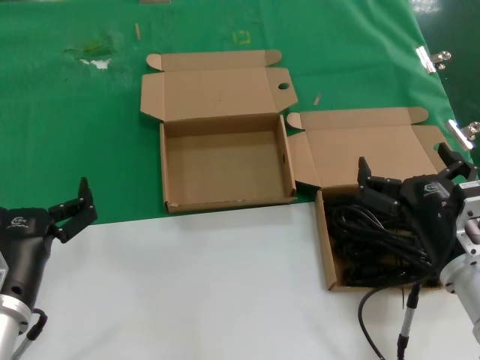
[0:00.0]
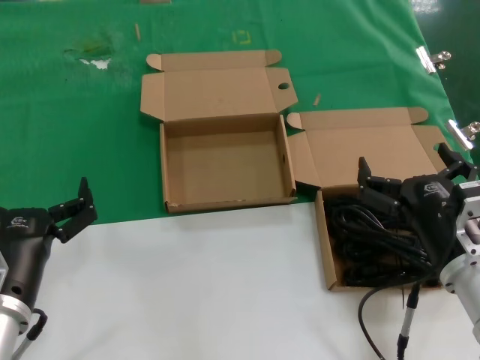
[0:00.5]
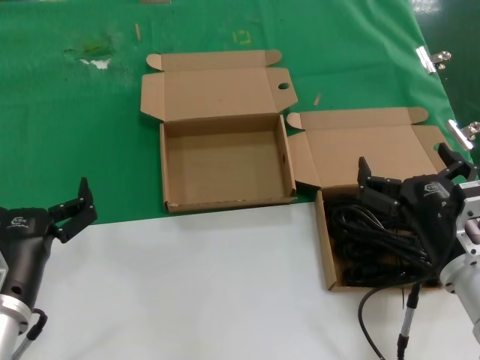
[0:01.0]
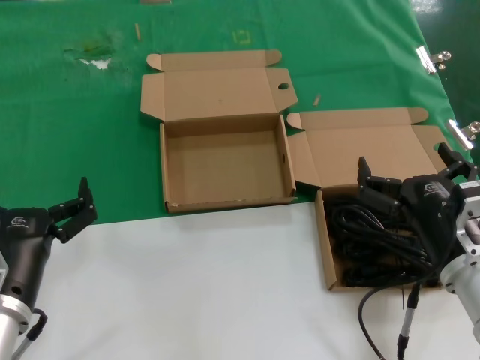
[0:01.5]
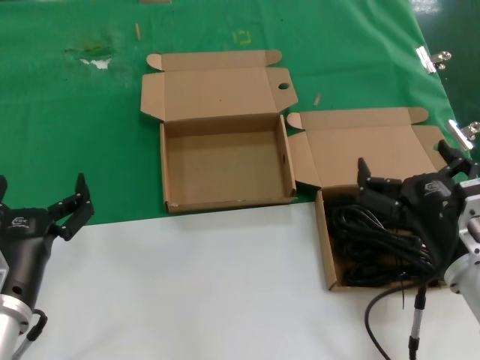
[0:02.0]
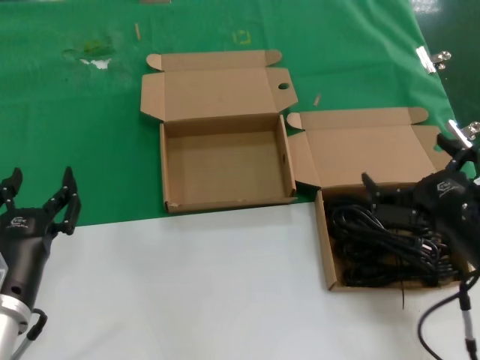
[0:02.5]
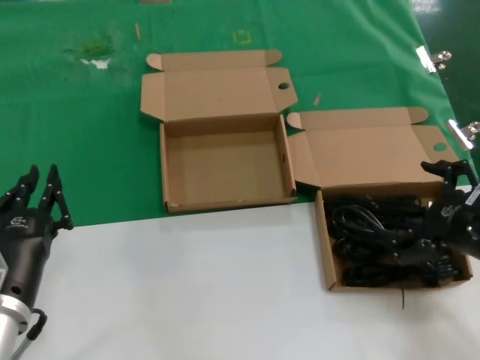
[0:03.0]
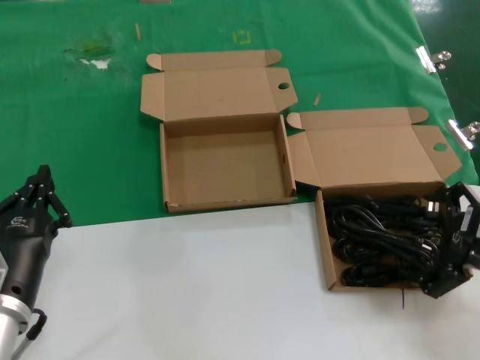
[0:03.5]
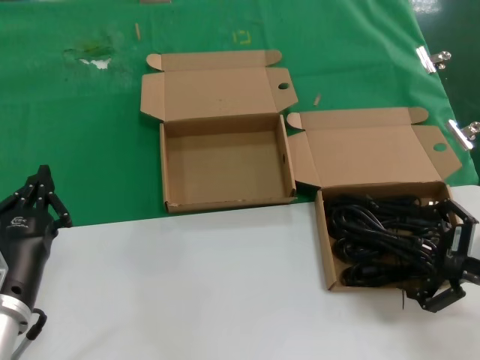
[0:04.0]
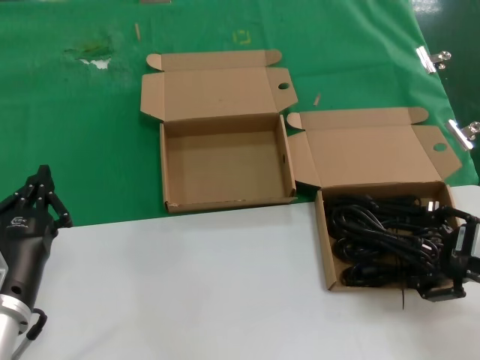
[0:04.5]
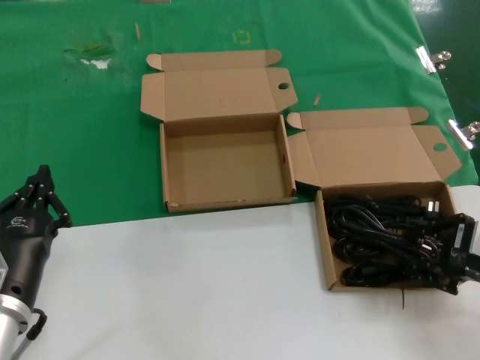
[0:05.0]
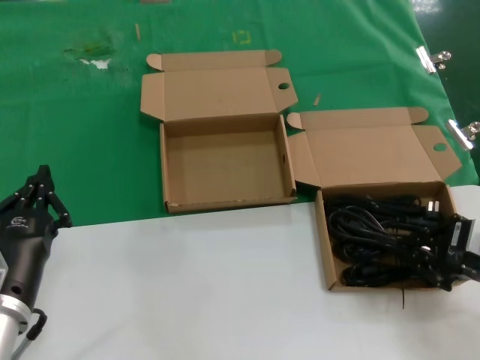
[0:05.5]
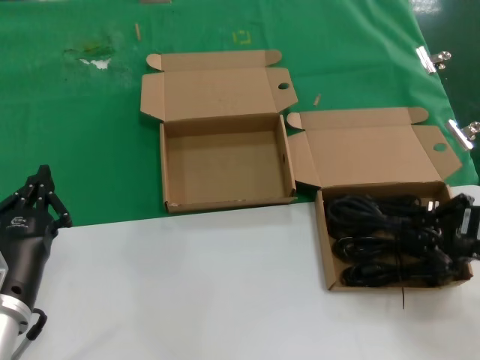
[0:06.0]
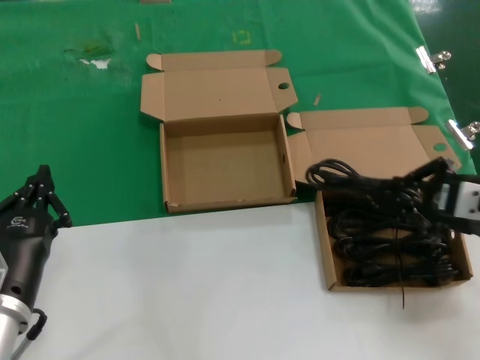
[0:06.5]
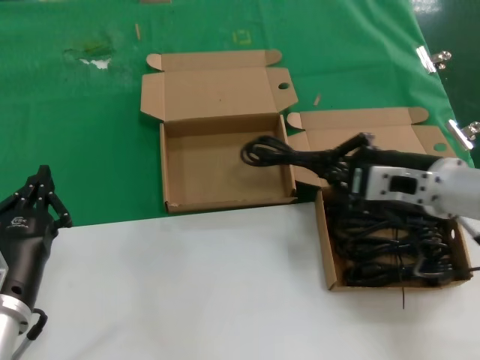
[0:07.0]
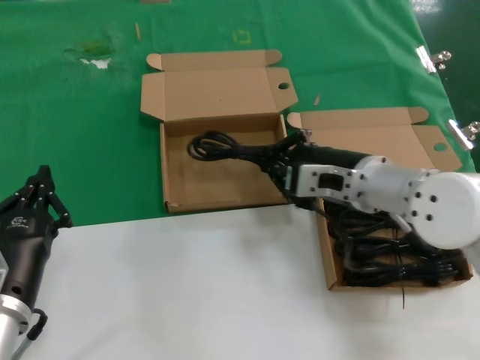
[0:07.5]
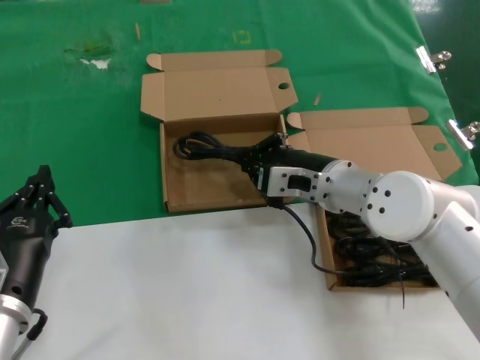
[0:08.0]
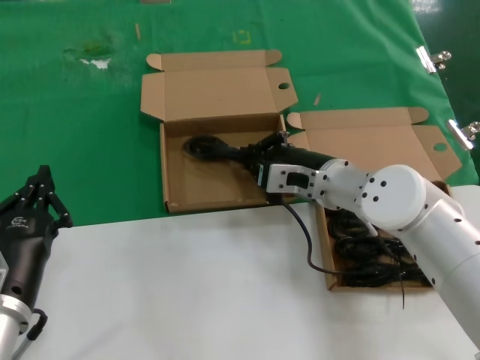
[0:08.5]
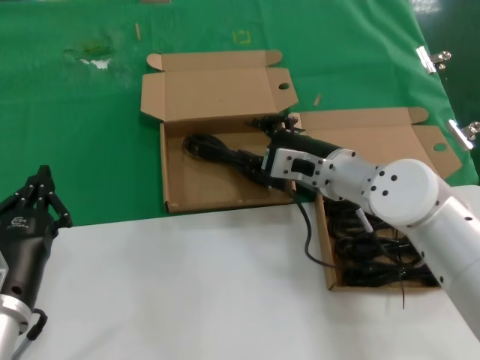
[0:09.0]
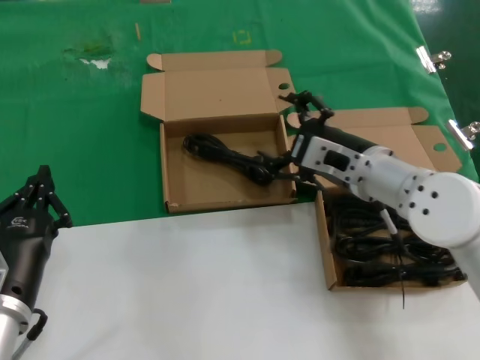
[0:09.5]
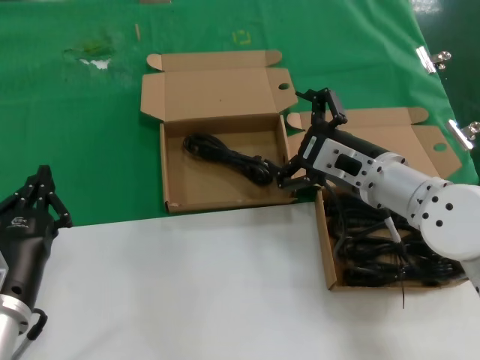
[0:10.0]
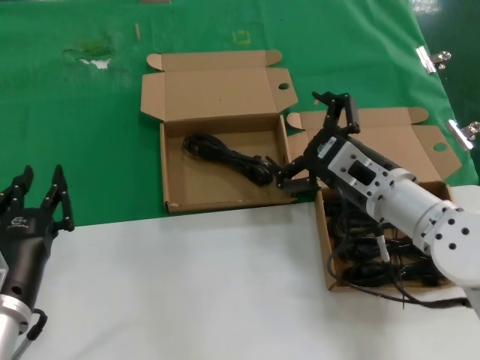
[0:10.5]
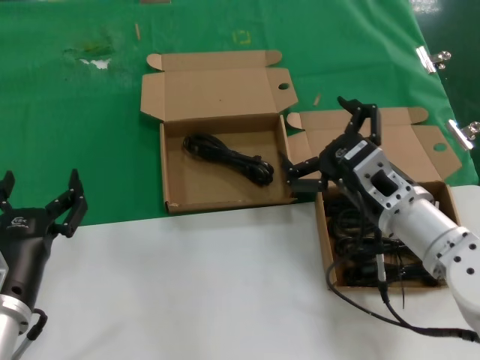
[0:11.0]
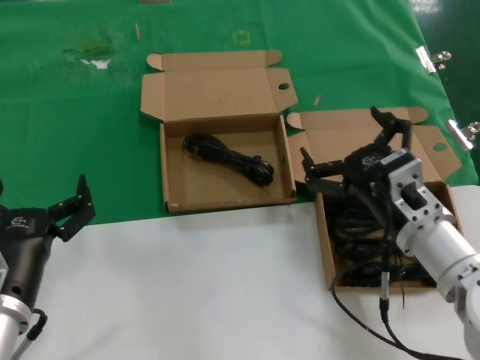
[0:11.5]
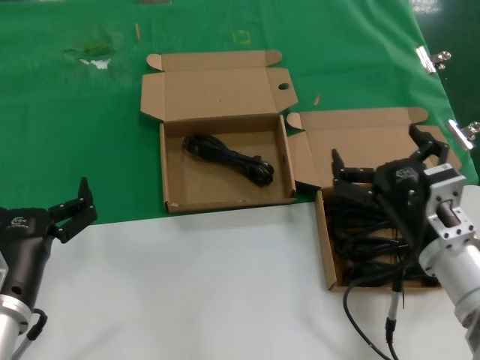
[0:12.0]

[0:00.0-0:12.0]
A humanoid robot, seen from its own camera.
Task of the whole recording: take the parts from the box containing them and put them into an empty box.
Step, 0:00.0 to 0:05.0: Grasp the data cable.
Step, 0:05.5 to 0:08.5: Place the data cable in the another box.
0:00.0 to 0:02.0: Both hands stay put.
0:02.0 to 0:04.0: The right hand shifts some 10 cm to the right and upward.
0:04.0 to 0:06.0: The hands move only a little.
0:06.0 to 0:08.0: The right hand heads to the left and forward, covering about 25 cm.
0:08.0 to 0:10.0: The right hand shifts by roughly 5 cm.
0:10.0 to 0:12.0: The right hand is displaced backward and downward by roughly 10 cm.

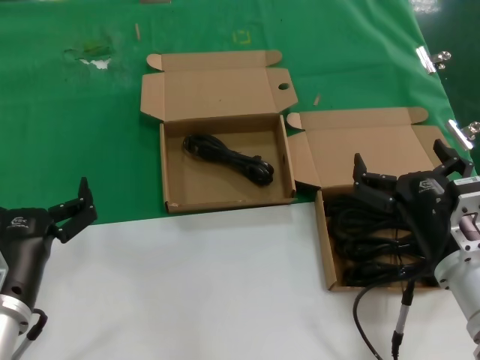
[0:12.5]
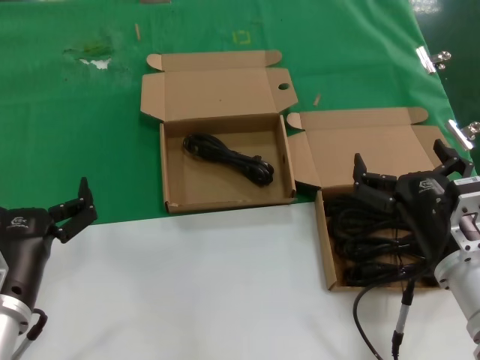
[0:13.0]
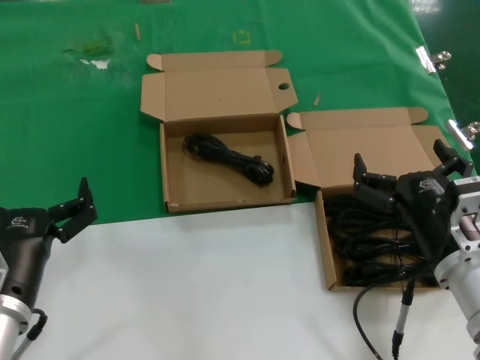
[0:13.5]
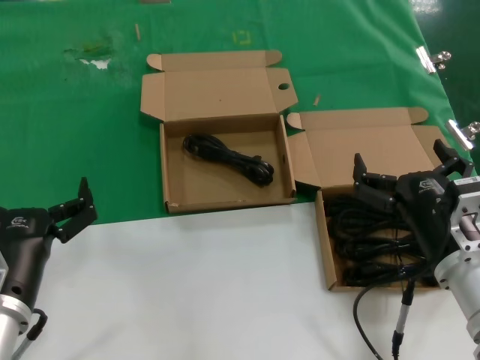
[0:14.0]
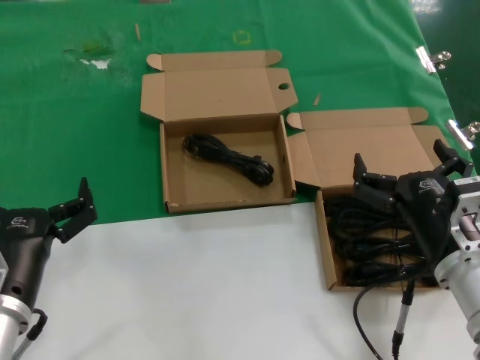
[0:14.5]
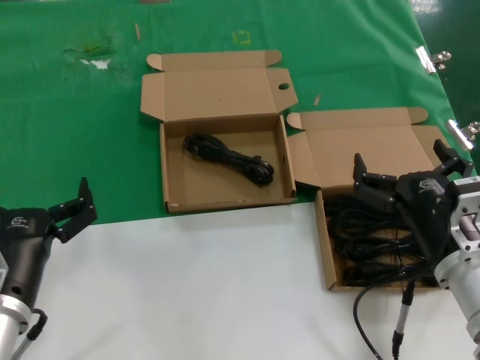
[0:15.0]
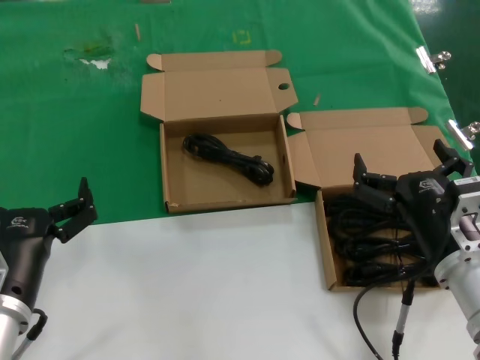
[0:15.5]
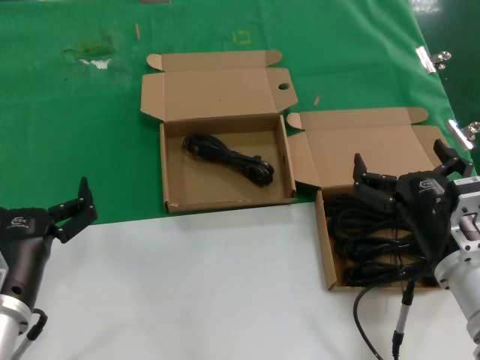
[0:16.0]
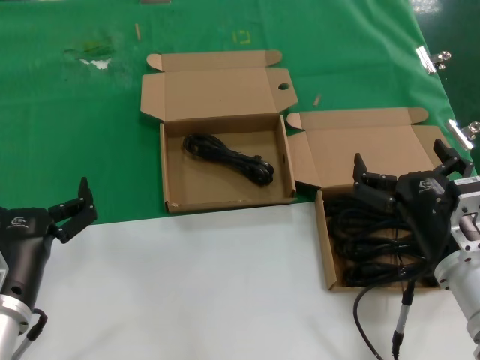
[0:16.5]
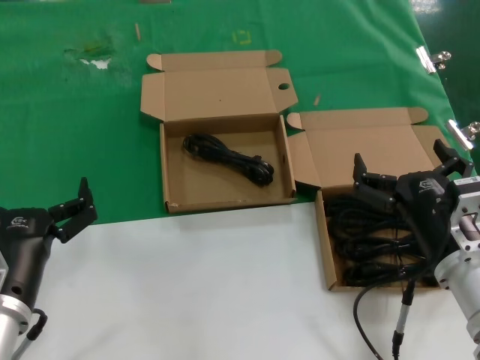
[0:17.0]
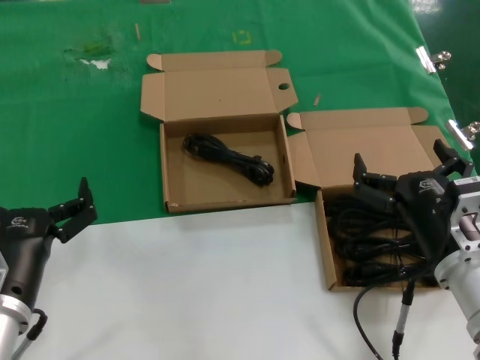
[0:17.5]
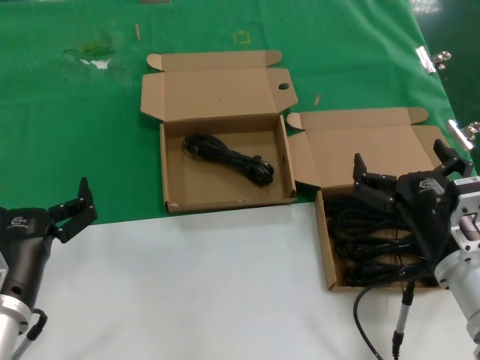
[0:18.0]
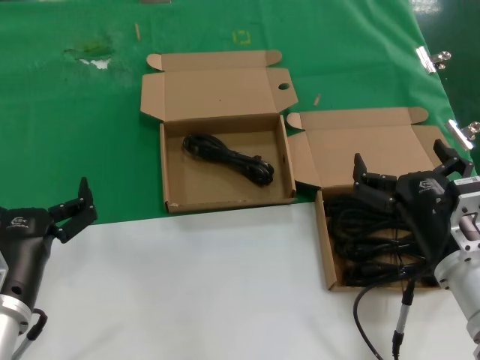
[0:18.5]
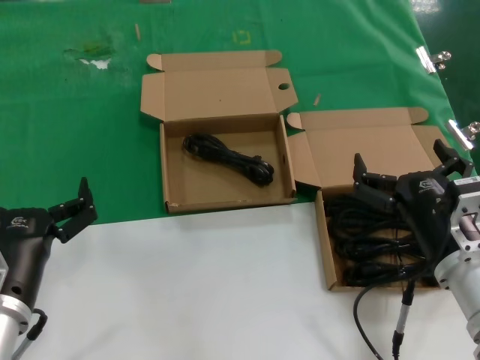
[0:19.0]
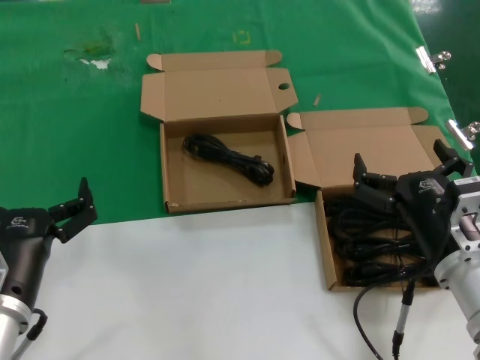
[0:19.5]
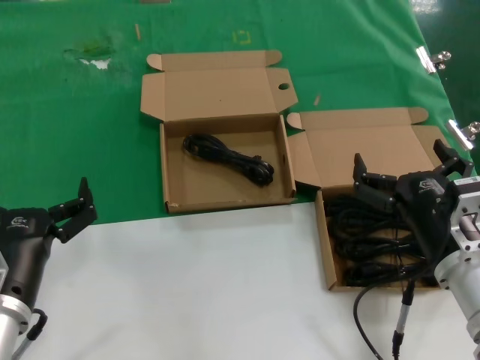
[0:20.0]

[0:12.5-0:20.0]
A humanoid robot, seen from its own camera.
Task of the whole recording: take the parts from the box containing them and put them into an empty box.
0:12.5 to 0:20.0: Both hands stay about where they are.

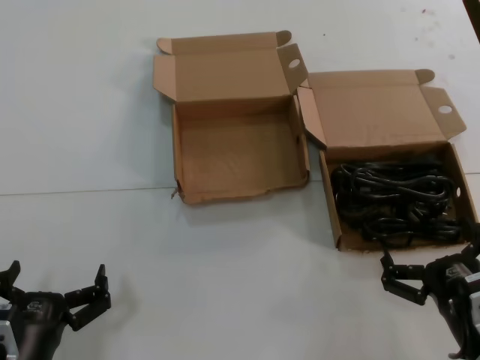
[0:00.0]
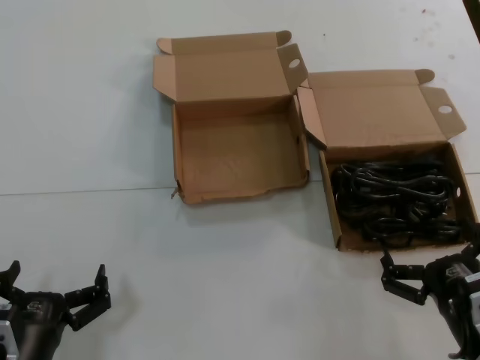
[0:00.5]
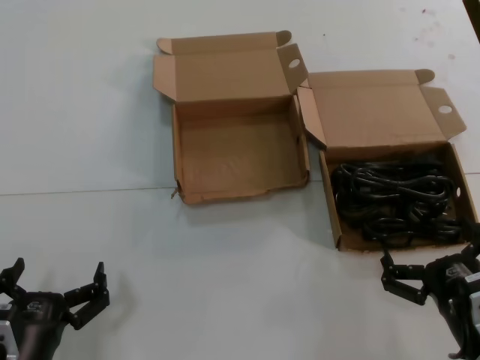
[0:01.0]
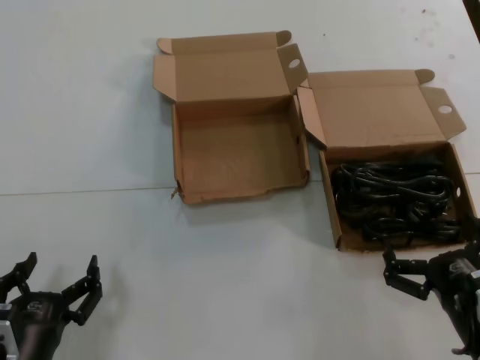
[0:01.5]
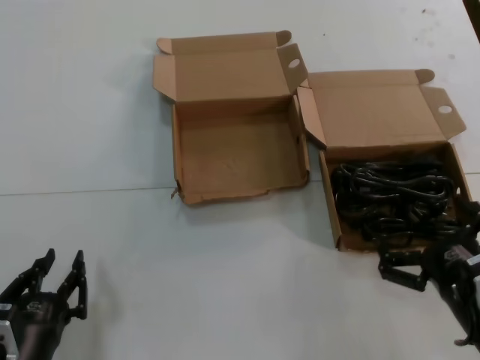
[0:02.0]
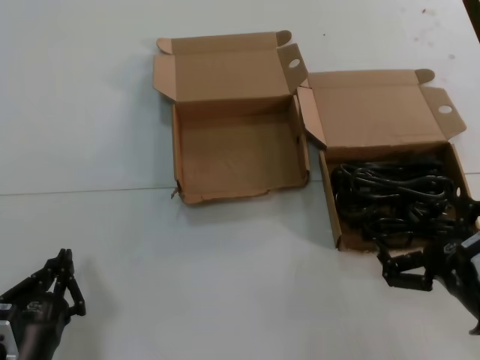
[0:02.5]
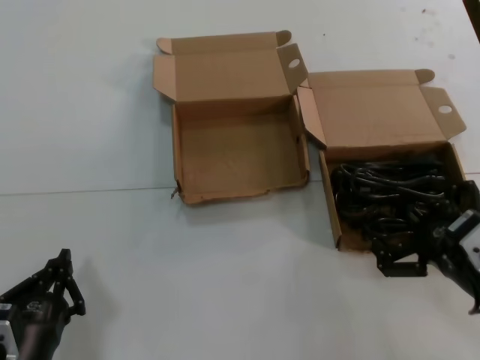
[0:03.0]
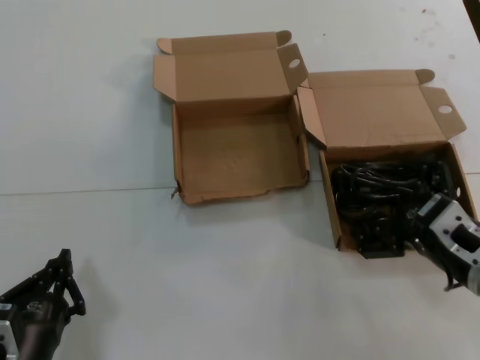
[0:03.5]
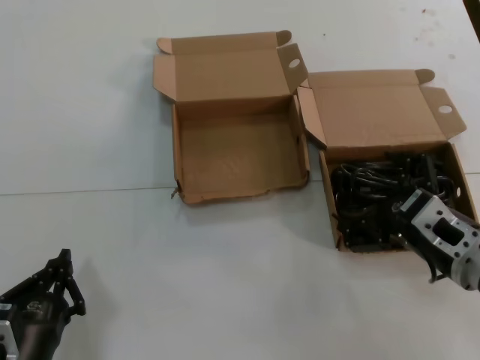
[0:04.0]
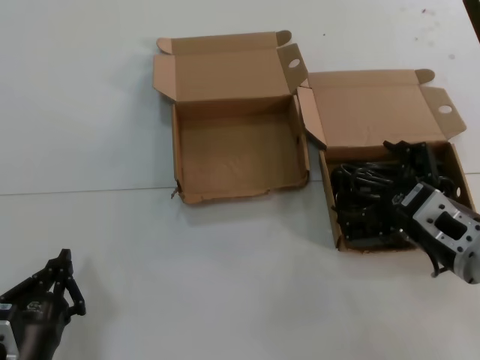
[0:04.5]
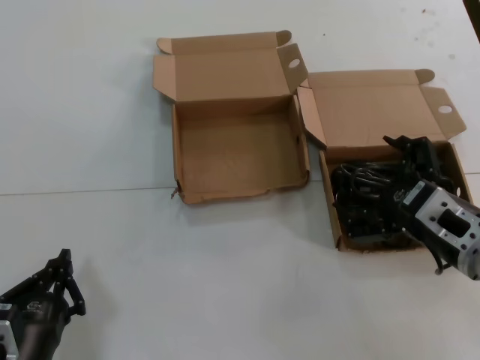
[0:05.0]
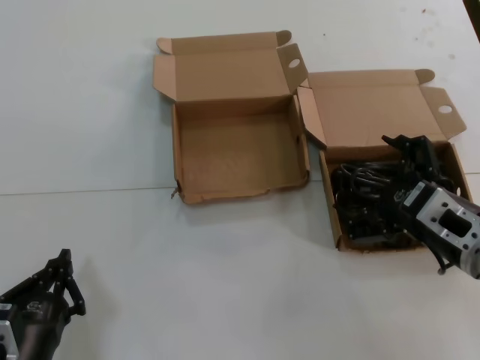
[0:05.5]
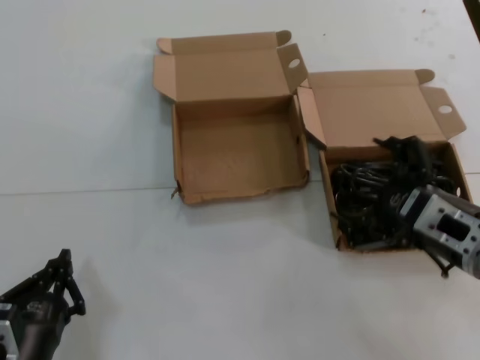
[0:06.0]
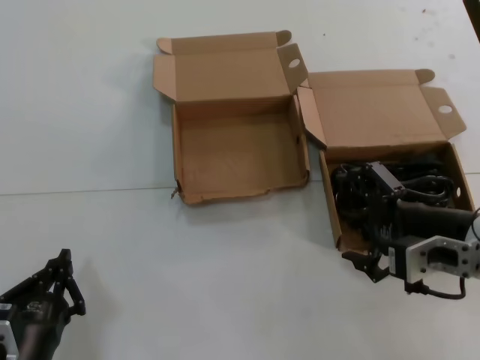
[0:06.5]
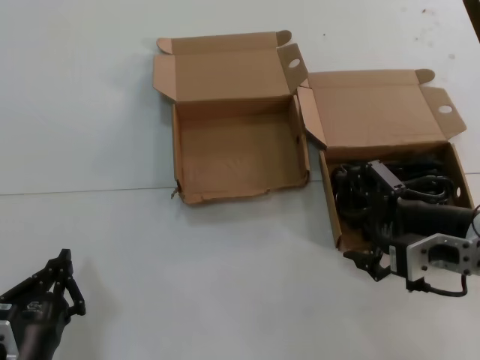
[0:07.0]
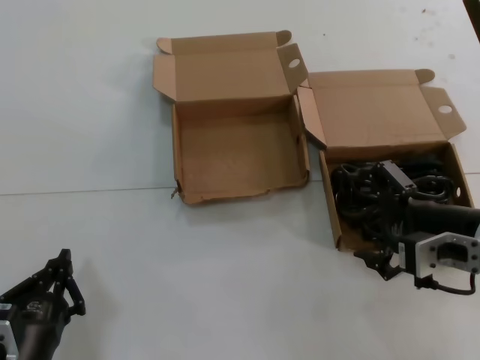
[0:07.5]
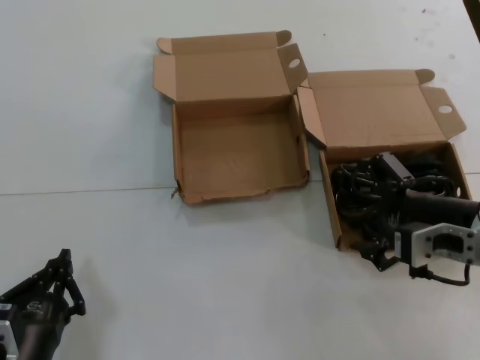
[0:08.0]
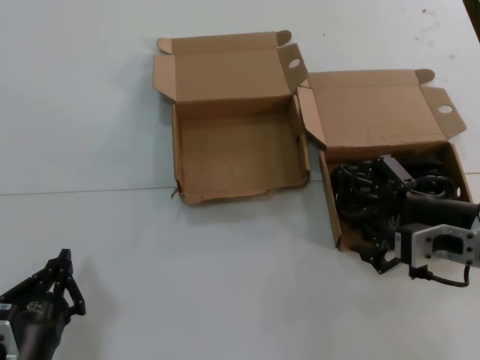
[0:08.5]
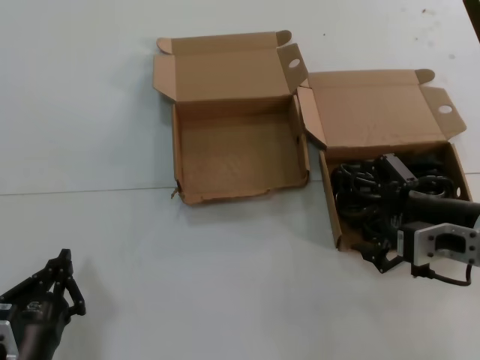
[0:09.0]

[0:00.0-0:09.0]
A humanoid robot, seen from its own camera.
Task of the whole recording: take the parts from the box containing them and put them into an empty box.
0:00.0 to 0:02.0: The hands make only small movements.
0:02.0 to 0:04.5: The right hand heads forward and upward, covering approximately 10 cm.
0:07.0 to 0:09.0: The hands make only small movements.
